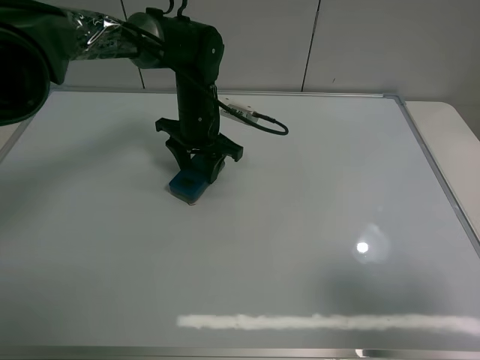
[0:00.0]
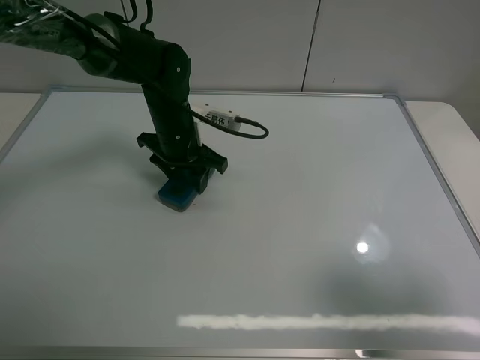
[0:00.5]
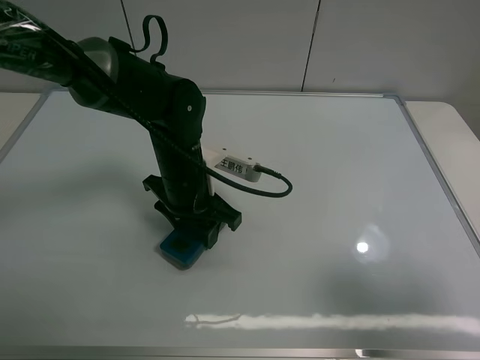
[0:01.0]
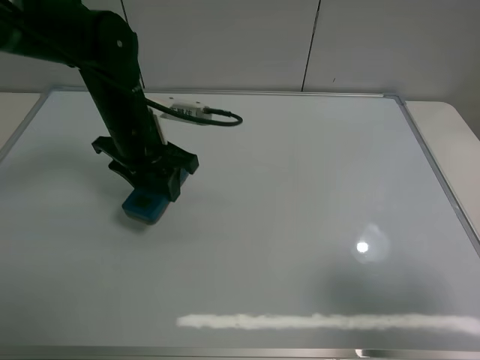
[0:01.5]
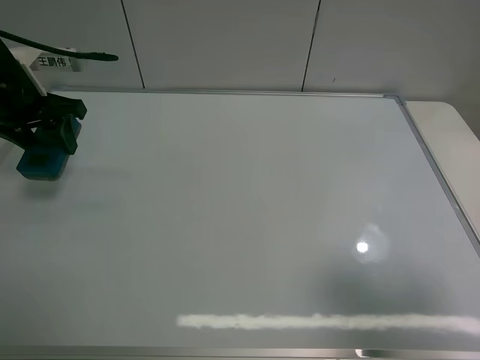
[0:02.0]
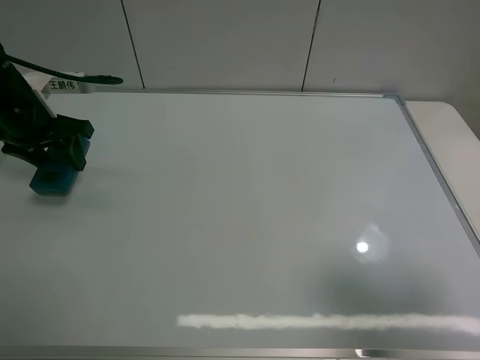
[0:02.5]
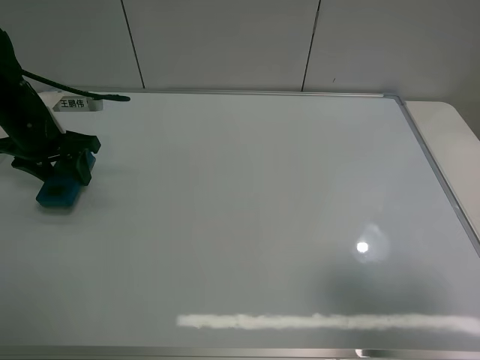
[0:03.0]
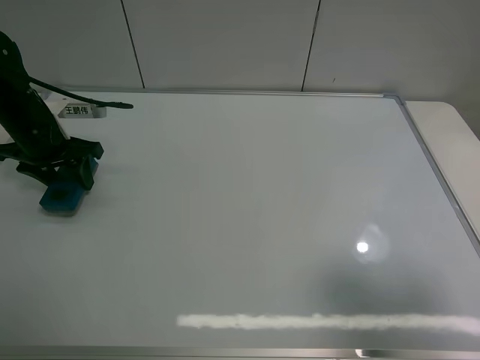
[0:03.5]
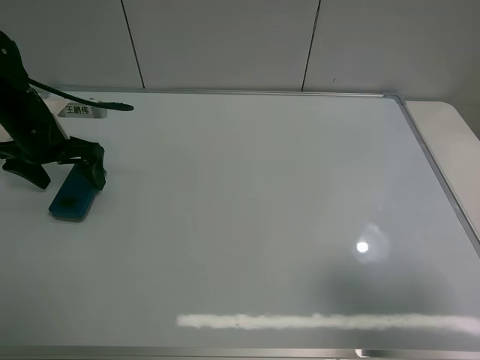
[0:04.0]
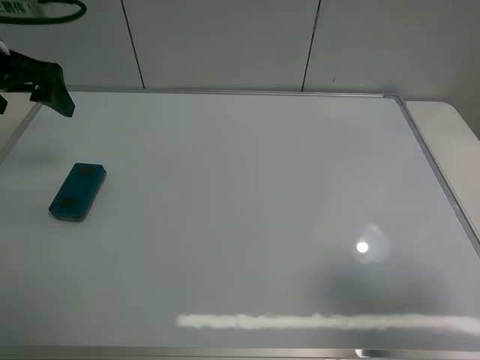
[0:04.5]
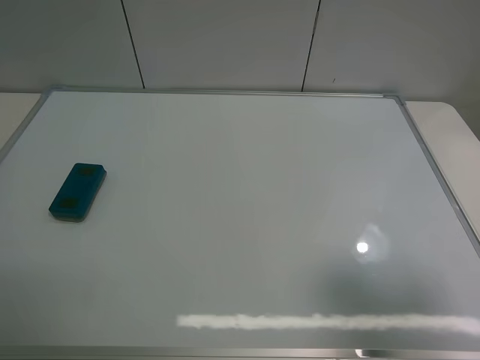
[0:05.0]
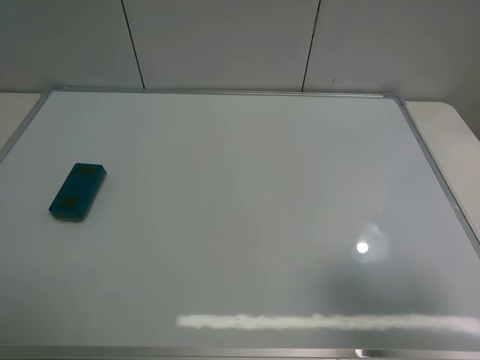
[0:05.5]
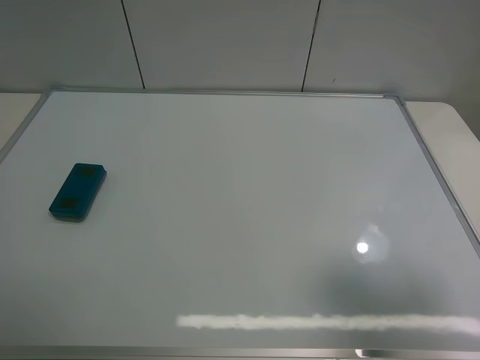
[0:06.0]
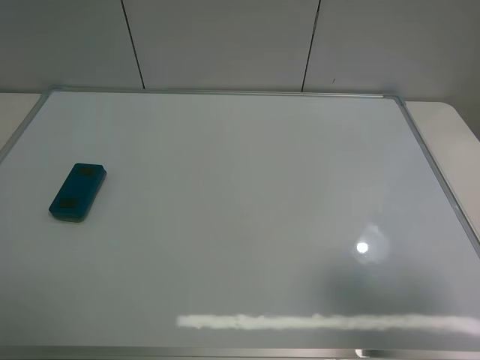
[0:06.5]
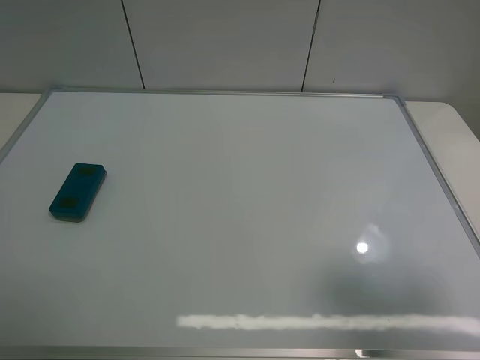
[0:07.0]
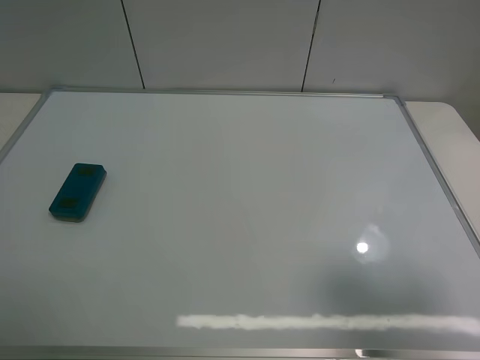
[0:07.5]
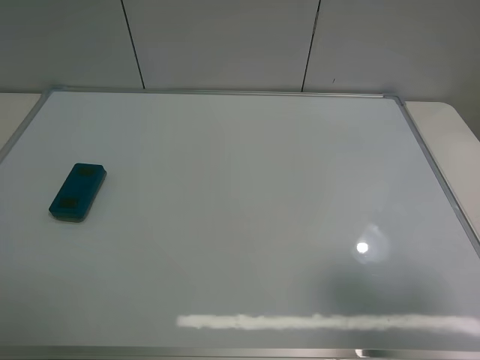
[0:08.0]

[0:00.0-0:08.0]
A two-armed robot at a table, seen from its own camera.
Task of the whole recording: use the left claw to pick up the whiteboard eraser, wipe the notes on the whiteboard clean, and then put them back in place.
Step, 0:01.5 to 0:03.5: Place the eraser with the left gripper.
0:00.0 to 0:02.0: The left gripper goes some 25 cm to the left and upward.
0:02.0 to 0:04.0: The left gripper moves downward, roughly 5 cm, and opens up.
0:04.0 to 0:06.0: The left gripper shifts approximately 40 cm backward and upward.
